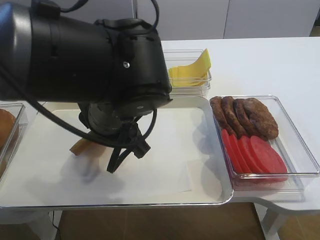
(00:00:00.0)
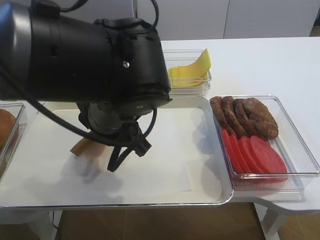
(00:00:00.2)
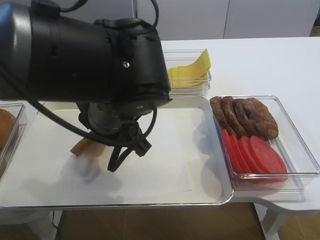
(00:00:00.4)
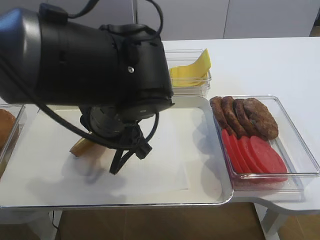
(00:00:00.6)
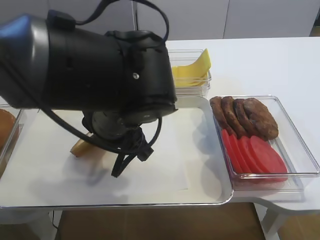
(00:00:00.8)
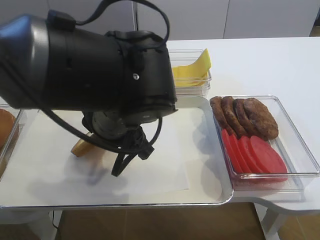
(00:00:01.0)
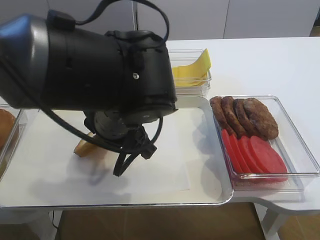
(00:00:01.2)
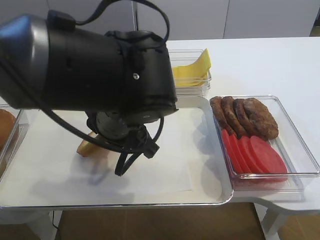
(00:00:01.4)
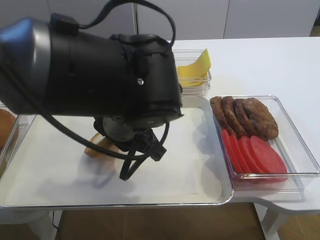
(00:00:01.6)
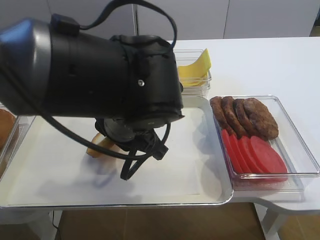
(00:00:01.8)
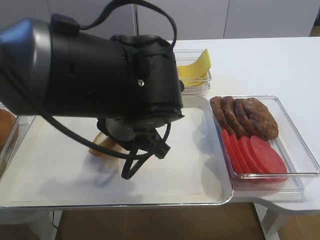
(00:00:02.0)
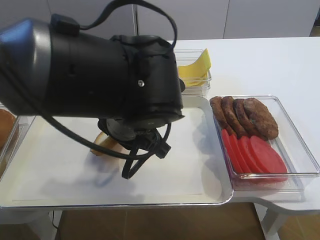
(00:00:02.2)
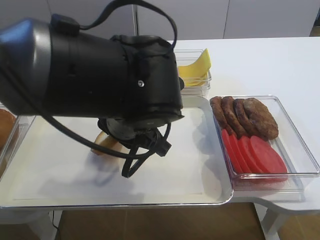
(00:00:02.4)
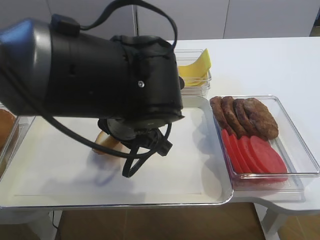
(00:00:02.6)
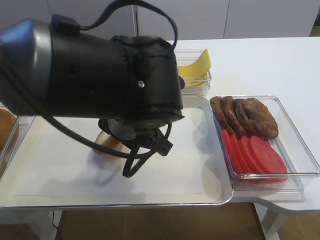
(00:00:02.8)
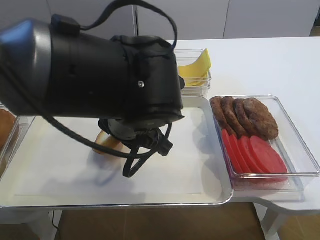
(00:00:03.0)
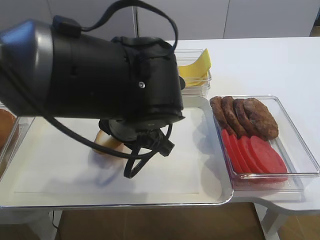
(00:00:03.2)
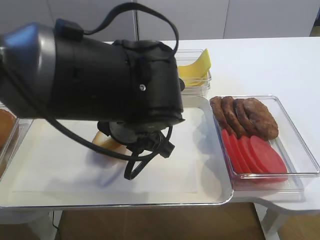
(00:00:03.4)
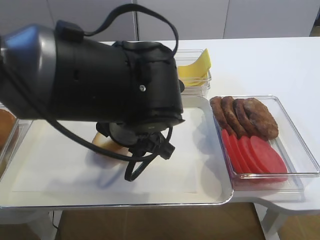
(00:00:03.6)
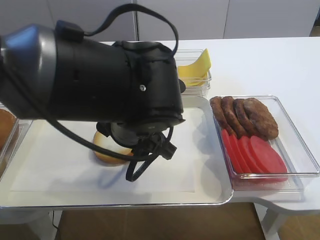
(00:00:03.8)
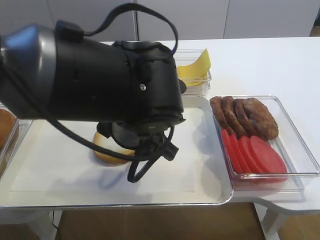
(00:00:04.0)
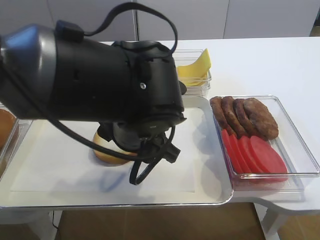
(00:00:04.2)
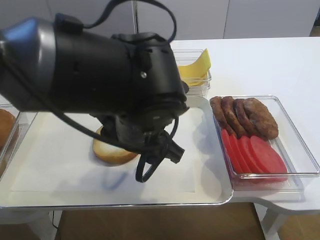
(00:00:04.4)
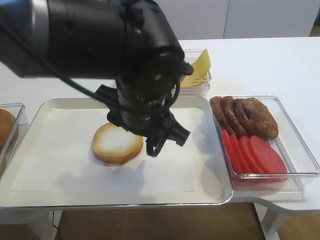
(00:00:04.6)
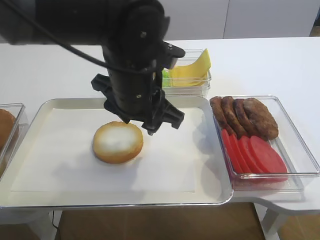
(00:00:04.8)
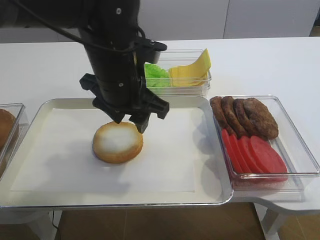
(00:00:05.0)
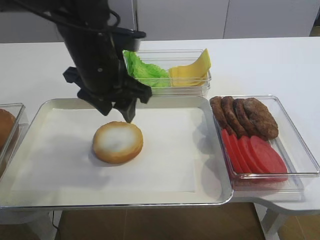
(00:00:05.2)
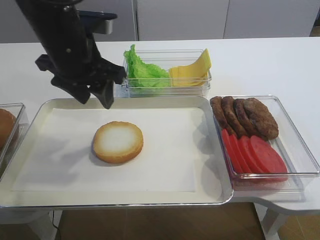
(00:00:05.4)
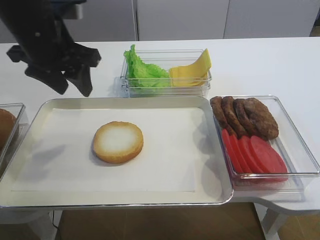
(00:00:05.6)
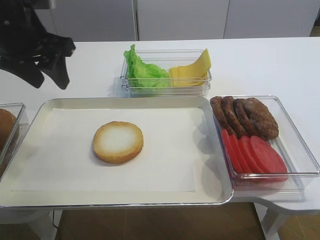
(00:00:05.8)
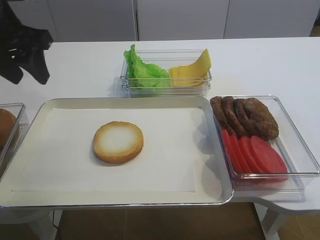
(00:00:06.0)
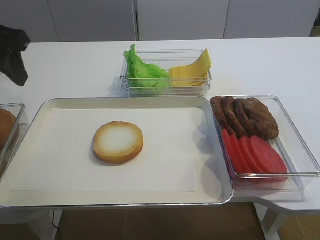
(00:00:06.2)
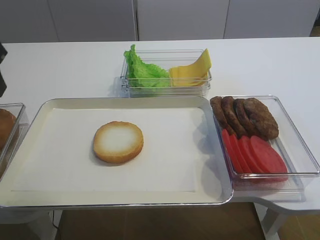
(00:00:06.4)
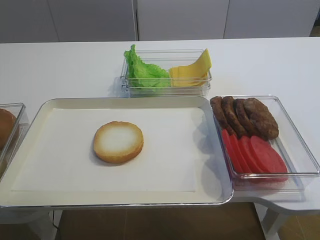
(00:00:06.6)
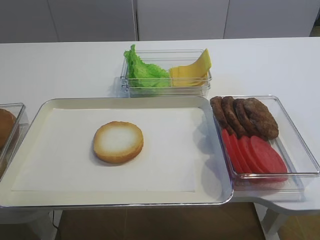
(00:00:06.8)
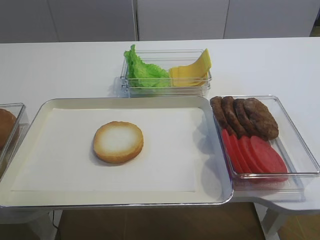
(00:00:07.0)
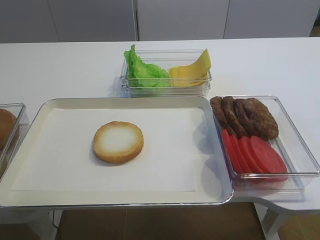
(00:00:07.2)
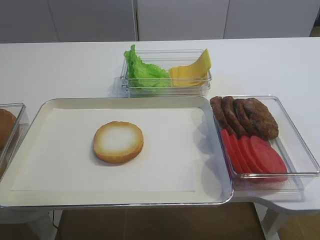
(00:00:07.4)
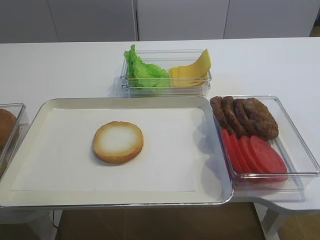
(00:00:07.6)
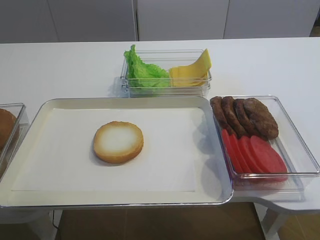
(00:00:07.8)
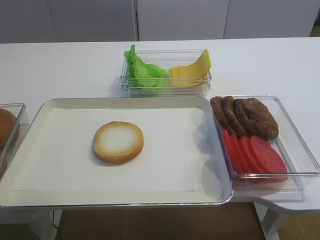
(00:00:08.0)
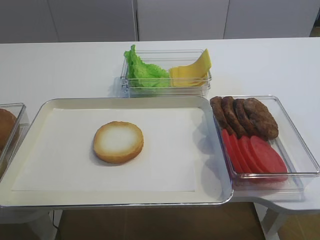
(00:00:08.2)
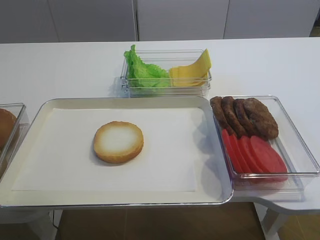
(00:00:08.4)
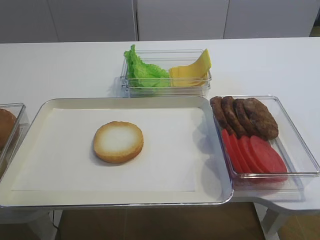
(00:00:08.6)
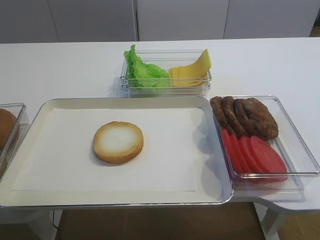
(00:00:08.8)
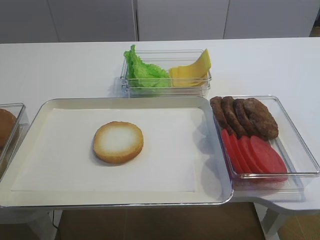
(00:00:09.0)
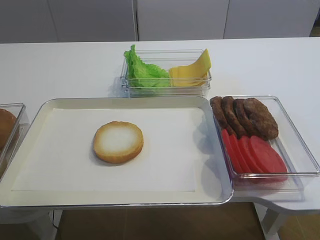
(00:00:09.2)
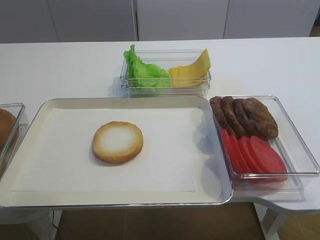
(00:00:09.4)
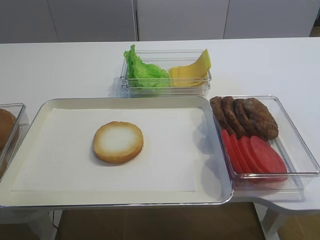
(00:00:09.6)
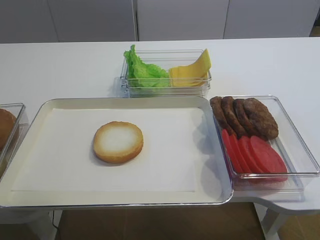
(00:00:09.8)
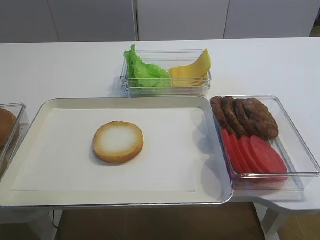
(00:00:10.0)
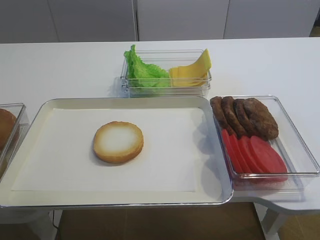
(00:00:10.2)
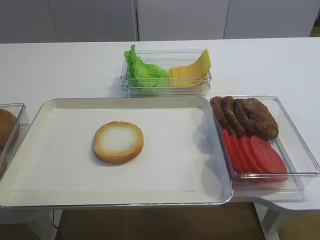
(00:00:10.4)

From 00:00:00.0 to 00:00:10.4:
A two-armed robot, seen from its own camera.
Step, from 00:00:00.0 to 00:00:04.6: Place the bread slice on the tray with the left gripper.
From 00:00:00.0 to 00:00:03.0: There are only small adjustments of the grippers.
From 00:00:03.0 to 00:00:04.4: The left gripper opens.
From 00:00:04.4 to 00:00:06.0: The left gripper heads to the left and upward, covering some 25 cm.
From 00:00:06.0 to 00:00:07.4: The left gripper heads backward, covering roughly 25 cm.
From 00:00:09.0 to 00:00:10.4: Both grippers stay put.

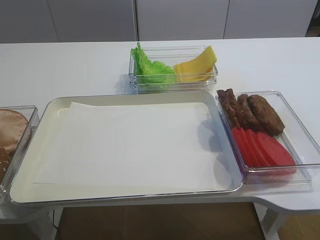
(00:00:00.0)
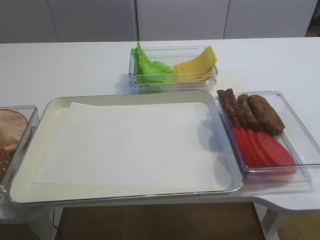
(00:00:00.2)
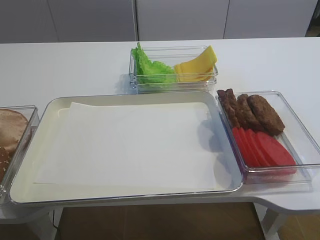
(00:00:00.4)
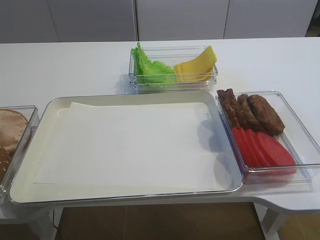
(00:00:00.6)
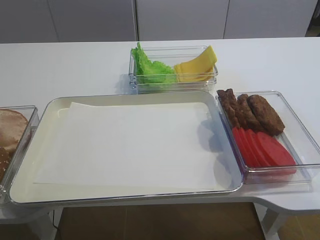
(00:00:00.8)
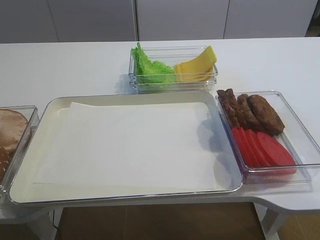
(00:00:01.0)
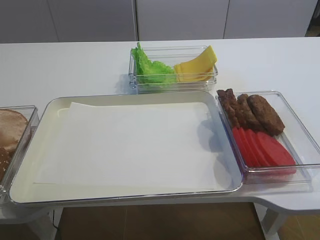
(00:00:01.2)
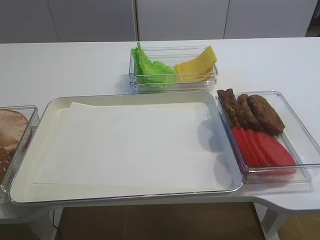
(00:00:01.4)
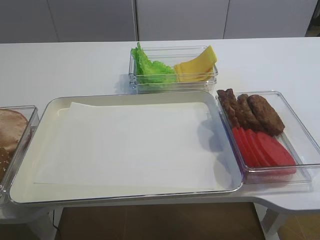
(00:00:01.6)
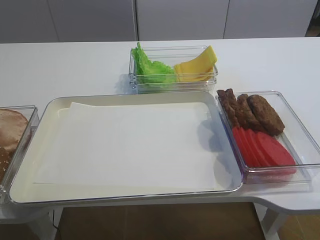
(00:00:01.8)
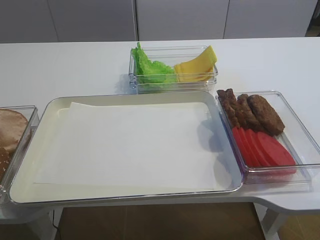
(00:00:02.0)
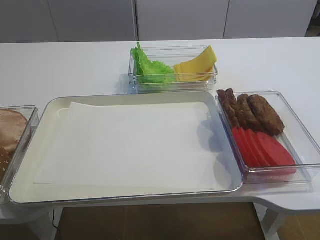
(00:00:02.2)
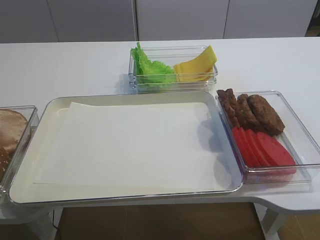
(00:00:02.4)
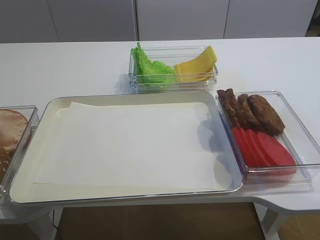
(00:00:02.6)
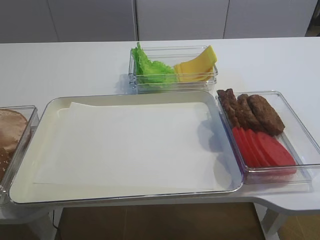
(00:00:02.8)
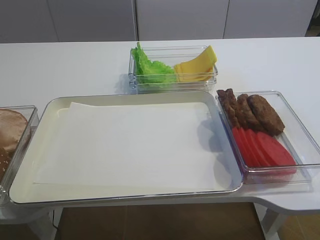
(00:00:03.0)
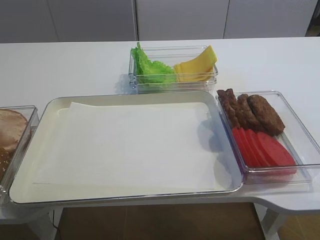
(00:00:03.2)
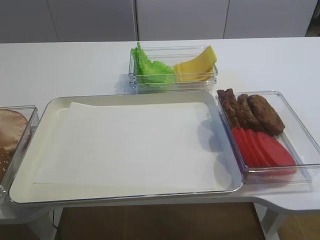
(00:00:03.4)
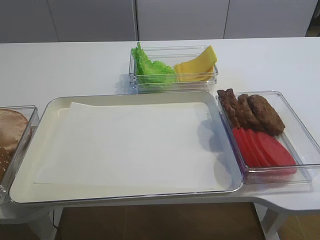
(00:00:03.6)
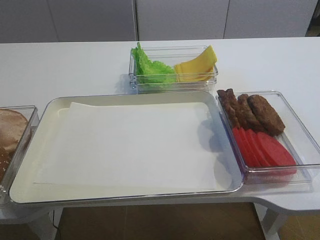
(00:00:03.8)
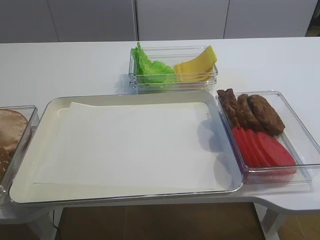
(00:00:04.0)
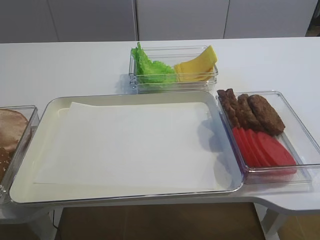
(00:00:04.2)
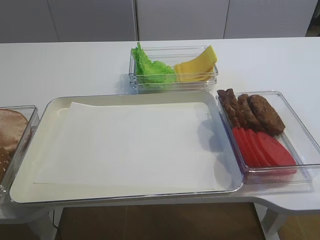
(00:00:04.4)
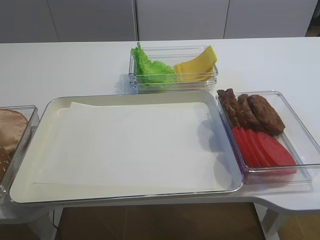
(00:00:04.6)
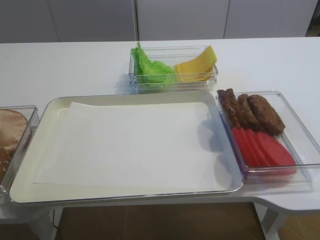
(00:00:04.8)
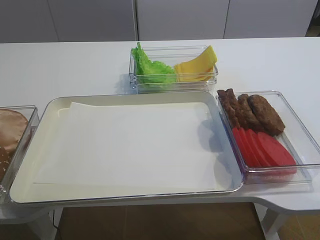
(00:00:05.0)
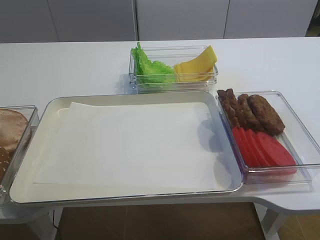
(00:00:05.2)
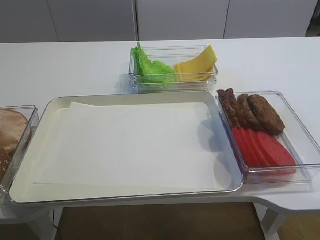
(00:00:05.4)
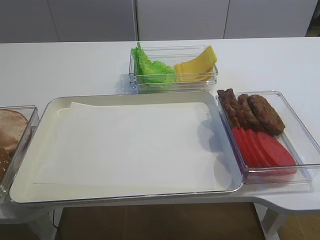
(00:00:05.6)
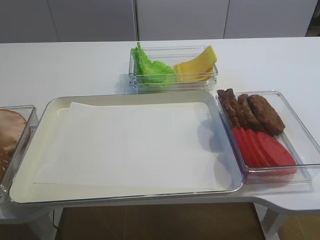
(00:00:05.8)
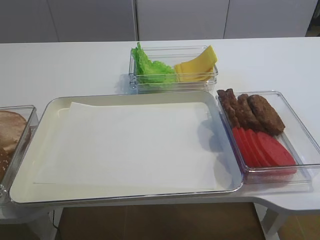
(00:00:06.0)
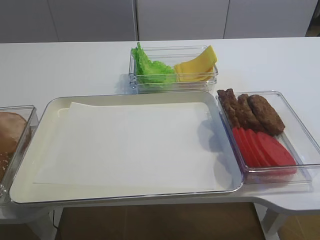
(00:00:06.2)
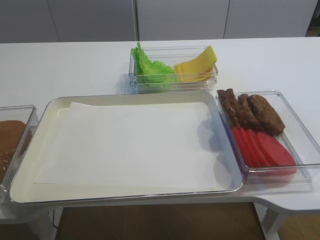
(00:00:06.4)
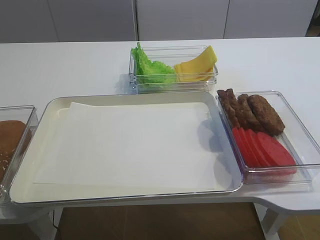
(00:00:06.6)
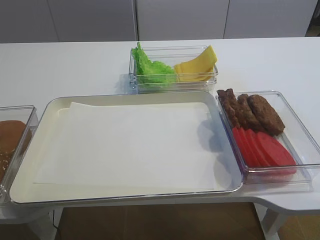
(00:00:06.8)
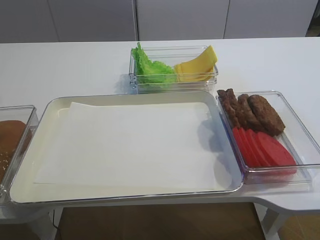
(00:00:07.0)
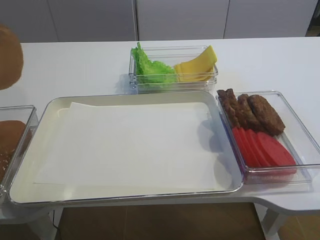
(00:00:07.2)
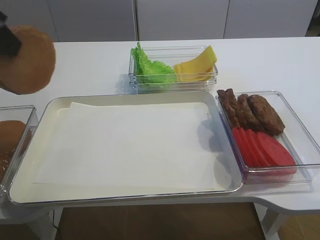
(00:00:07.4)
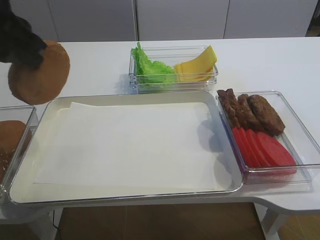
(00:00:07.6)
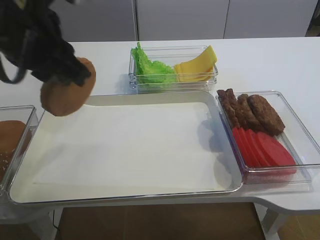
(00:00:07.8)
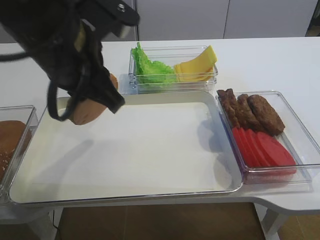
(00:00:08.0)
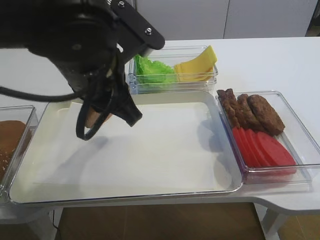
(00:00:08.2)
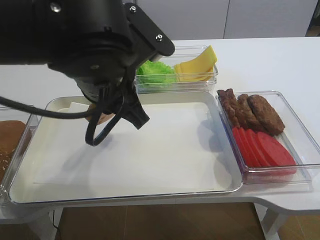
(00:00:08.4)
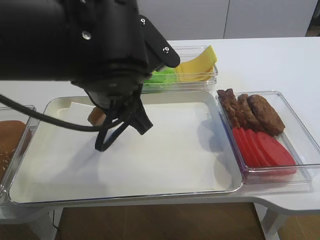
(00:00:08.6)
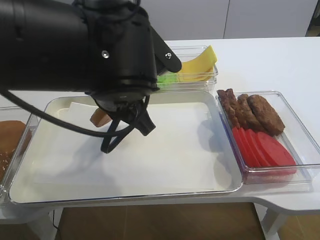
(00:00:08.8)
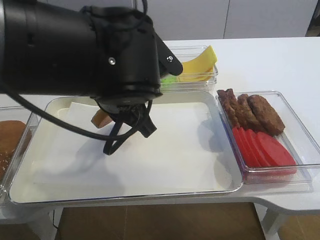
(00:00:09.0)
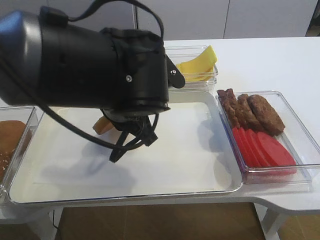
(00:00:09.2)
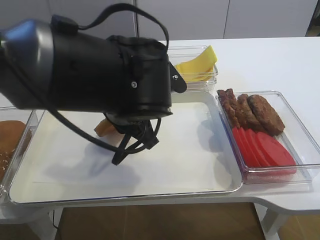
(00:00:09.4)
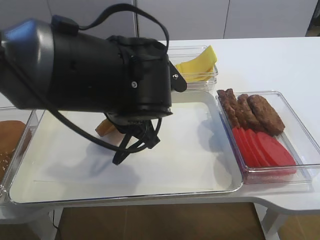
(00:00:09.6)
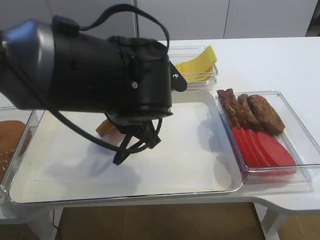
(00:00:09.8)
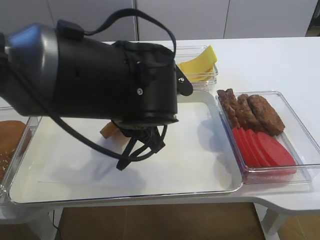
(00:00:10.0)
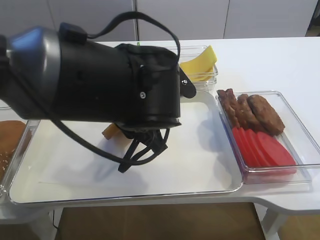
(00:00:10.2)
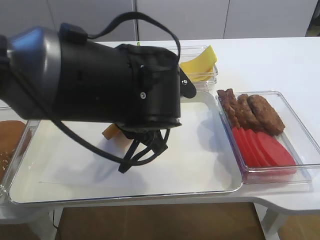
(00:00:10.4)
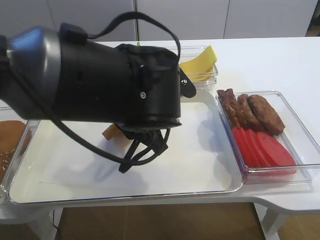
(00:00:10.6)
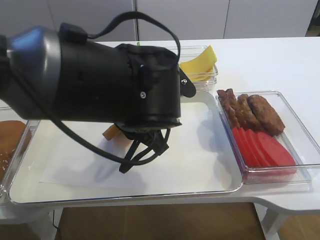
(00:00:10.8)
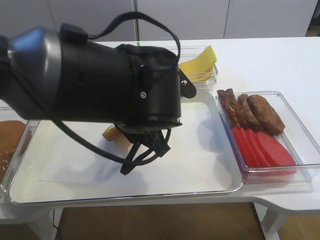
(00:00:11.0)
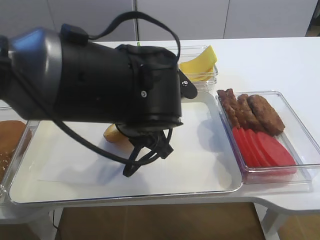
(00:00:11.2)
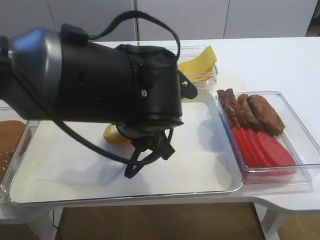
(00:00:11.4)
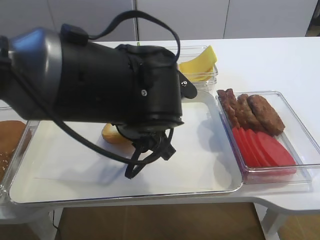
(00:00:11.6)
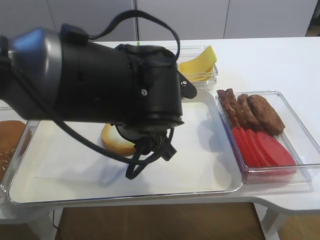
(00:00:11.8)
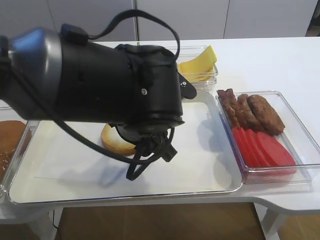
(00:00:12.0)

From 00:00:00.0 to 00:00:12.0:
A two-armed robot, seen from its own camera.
From 00:00:06.0 to 00:00:07.6: The left gripper heads to the right and upward, covering some 20 cm.
From 00:00:07.6 to 00:00:09.0: The left gripper travels to the right and downward by roughly 20 cm.
From 00:00:10.4 to 00:00:12.0: The left gripper opens up.
